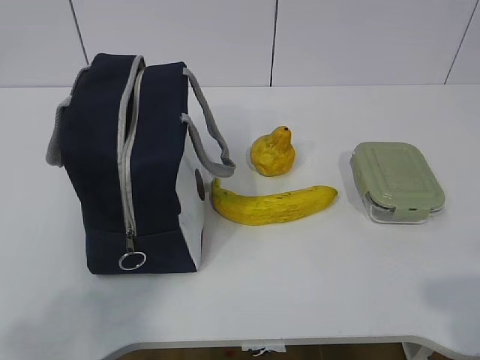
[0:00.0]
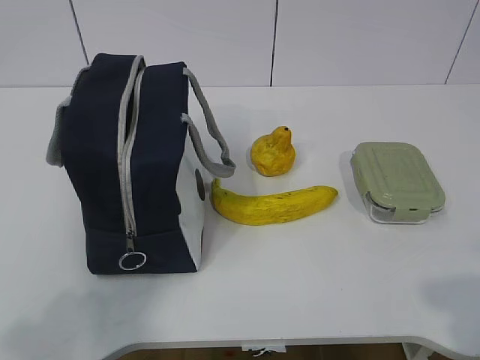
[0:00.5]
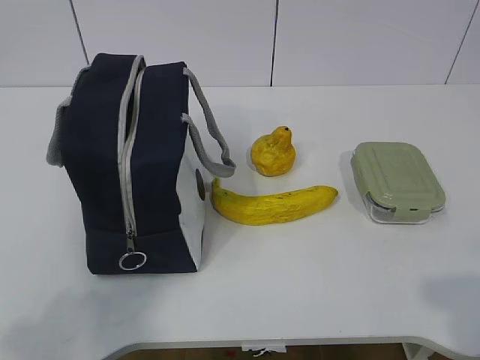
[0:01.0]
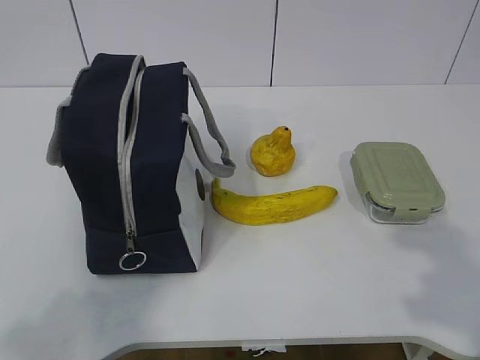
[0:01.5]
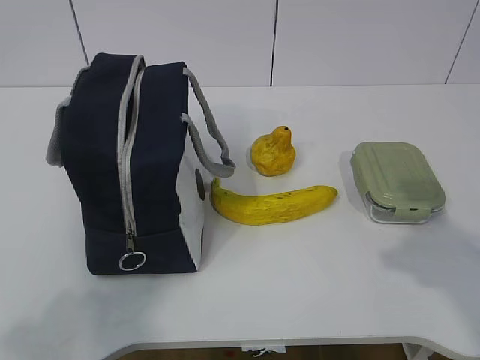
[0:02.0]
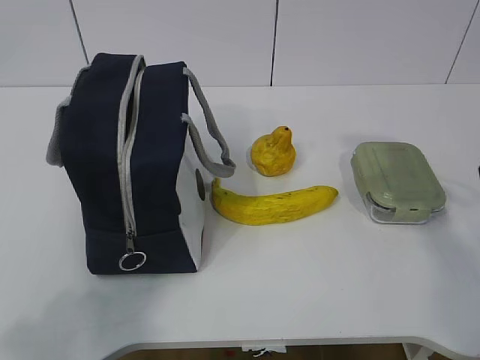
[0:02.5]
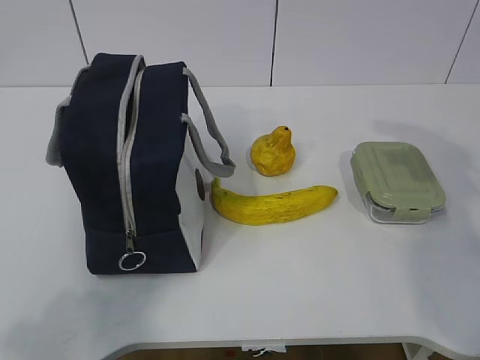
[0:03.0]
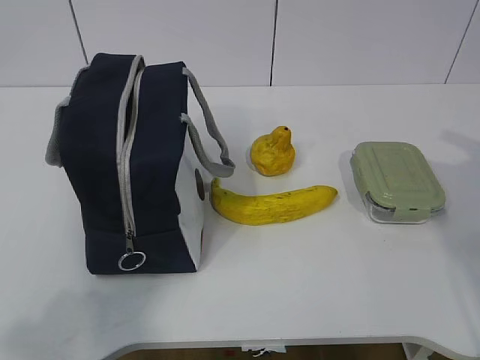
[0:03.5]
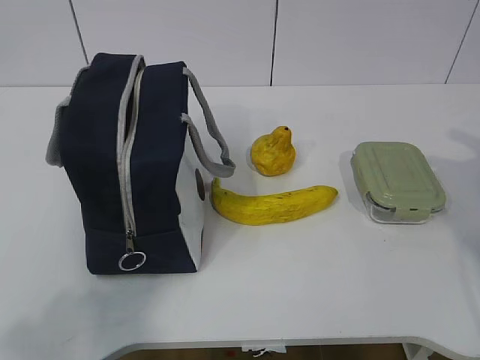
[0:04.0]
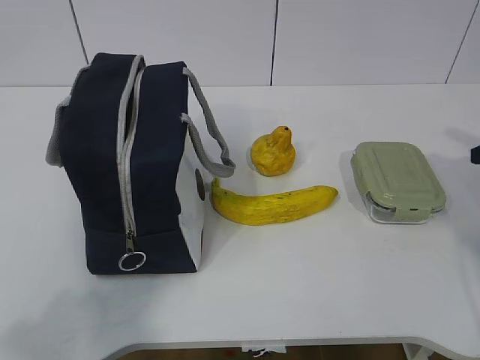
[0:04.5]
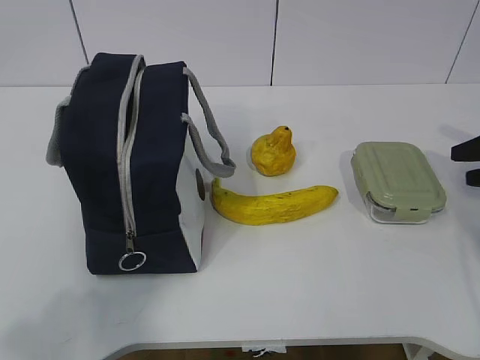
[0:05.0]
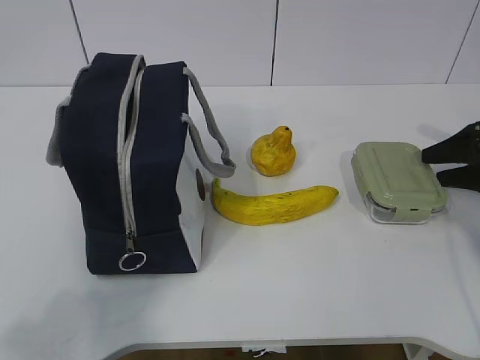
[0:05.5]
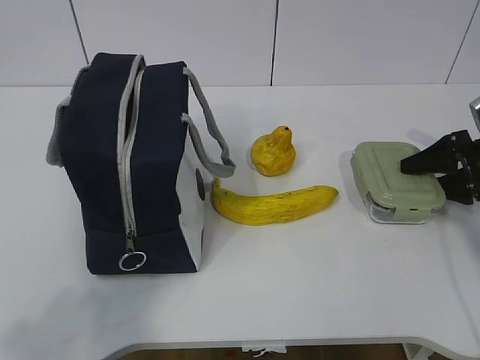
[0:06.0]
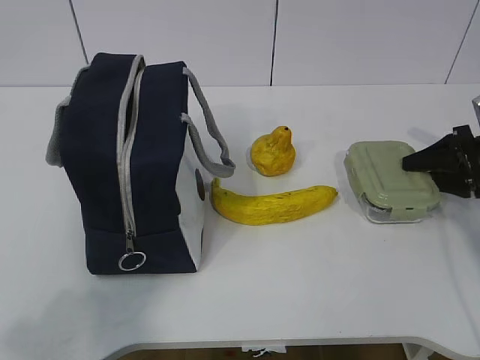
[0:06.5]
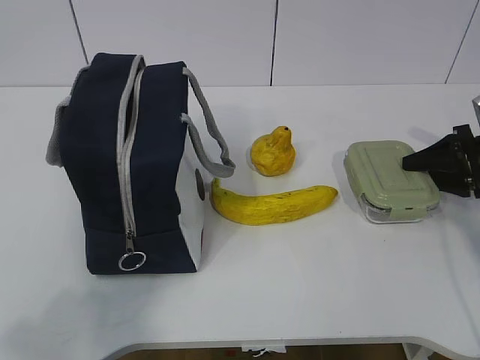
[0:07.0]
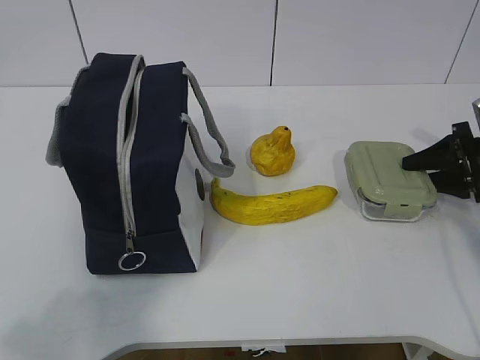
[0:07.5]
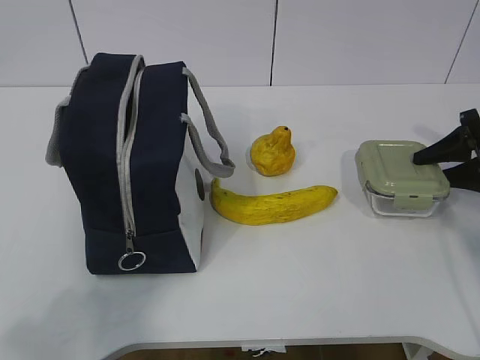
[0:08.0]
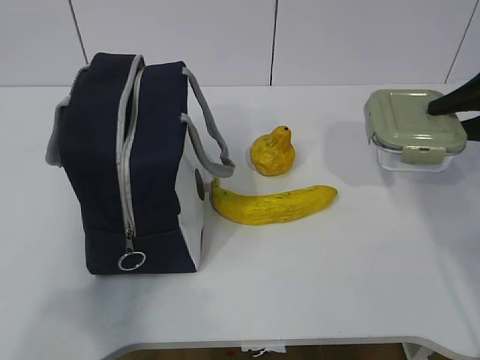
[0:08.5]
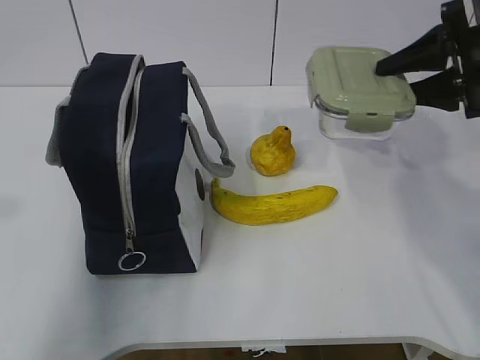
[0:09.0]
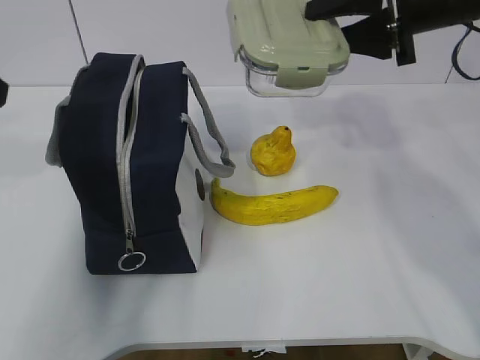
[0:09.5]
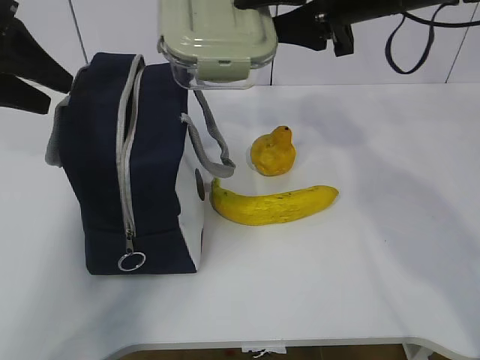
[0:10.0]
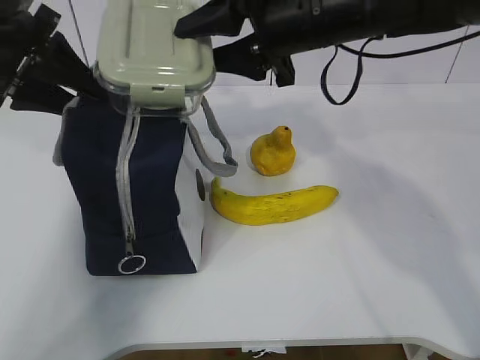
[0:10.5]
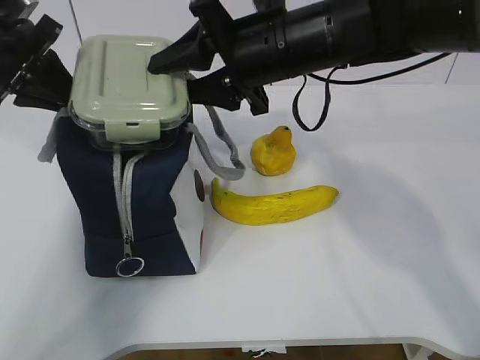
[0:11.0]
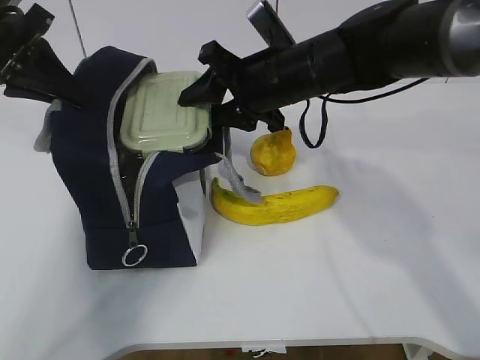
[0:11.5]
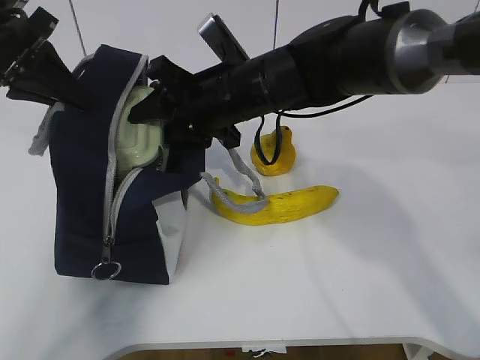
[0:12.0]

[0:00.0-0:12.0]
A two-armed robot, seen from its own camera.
Step, 0:00.0 to 0:06.0: Grab the lunch box with your right hand.
Step, 0:06.5 to 0:09.0: Grab the lunch bag with your left hand.
Step, 0:09.5 to 0:10.5: Place it into the bag with your right hand.
0:02.0 to 0:04.0: The right gripper moves forward, to the right and downward, roughly 30 cm.
0:04.0 to 0:06.0: The right gripper heads downward, forward and to the left, covering approximately 10 cm.
0:06.0 to 0:08.0: The right gripper closes up.
0:08.0 to 0:10.0: The right gripper goes approximately 30 cm to the left and upward, while the left gripper heads forward, covering roughly 35 cm, and opens up.
0:10.0 to 0:12.0: The right gripper travels to the left and downward by approximately 15 cm; the left gripper closes up.

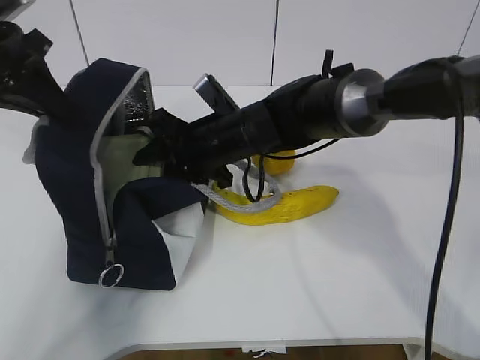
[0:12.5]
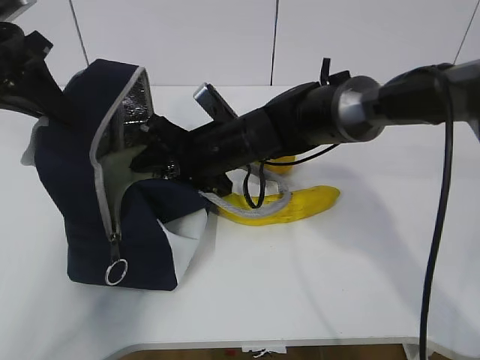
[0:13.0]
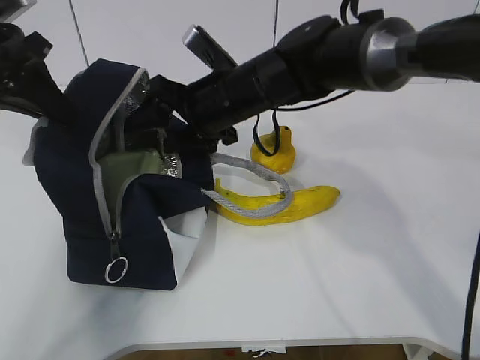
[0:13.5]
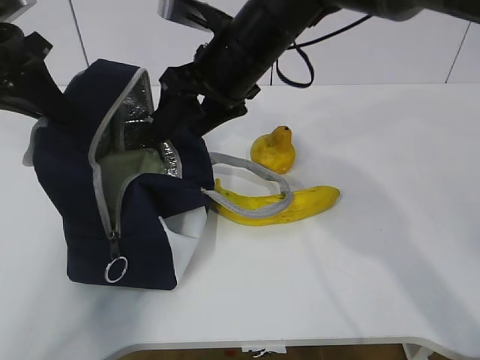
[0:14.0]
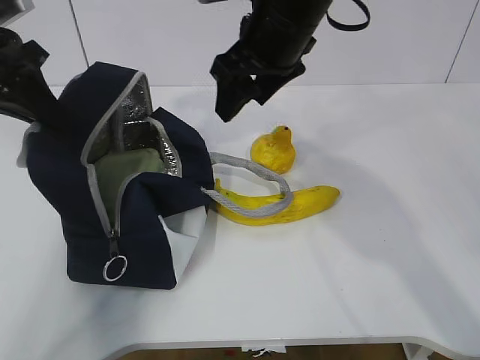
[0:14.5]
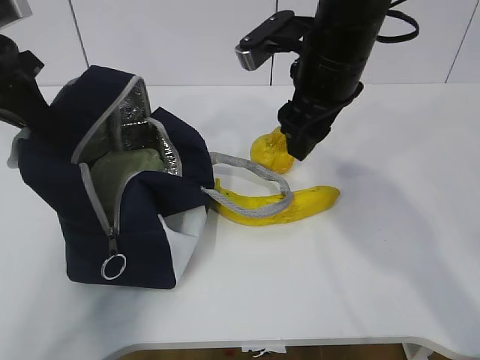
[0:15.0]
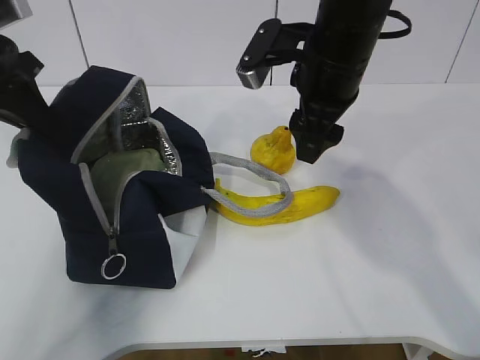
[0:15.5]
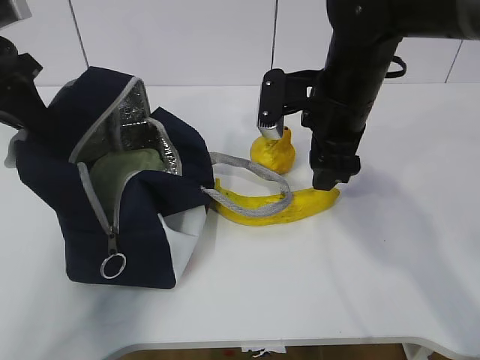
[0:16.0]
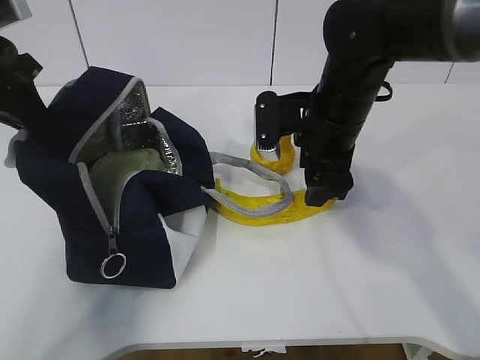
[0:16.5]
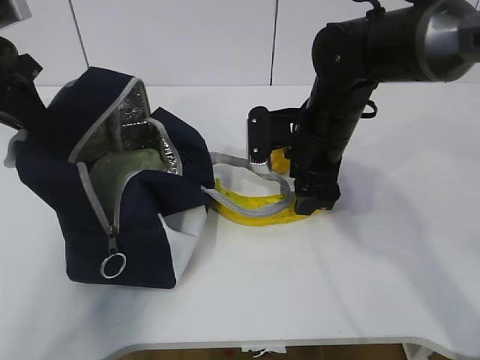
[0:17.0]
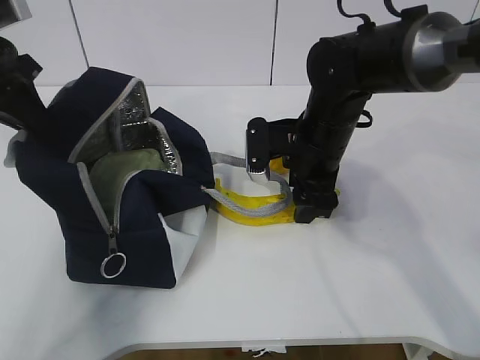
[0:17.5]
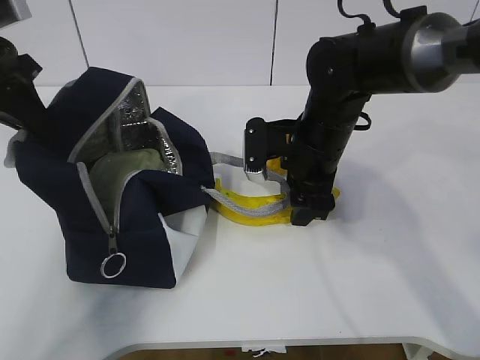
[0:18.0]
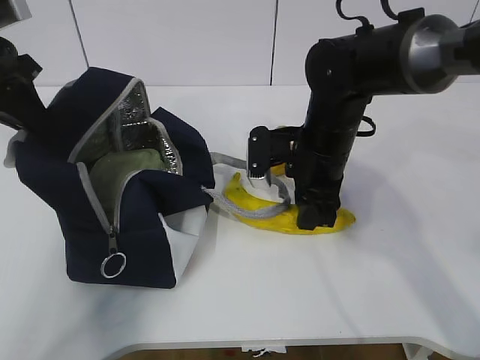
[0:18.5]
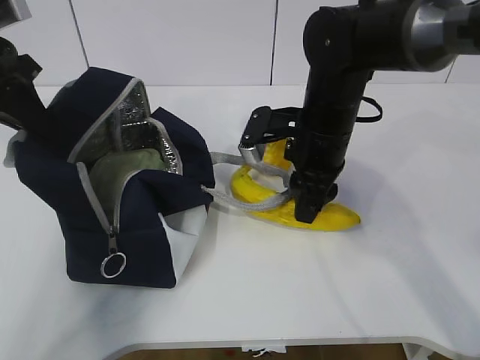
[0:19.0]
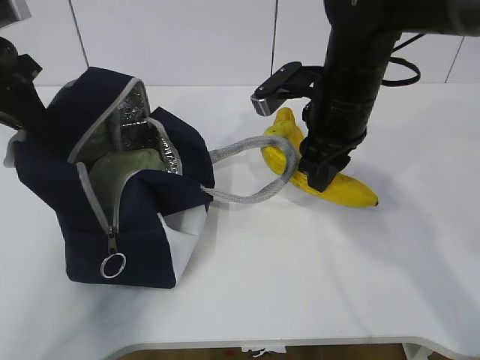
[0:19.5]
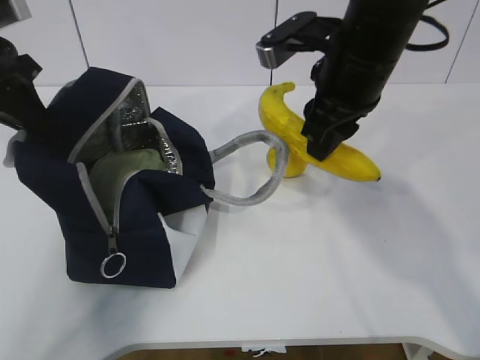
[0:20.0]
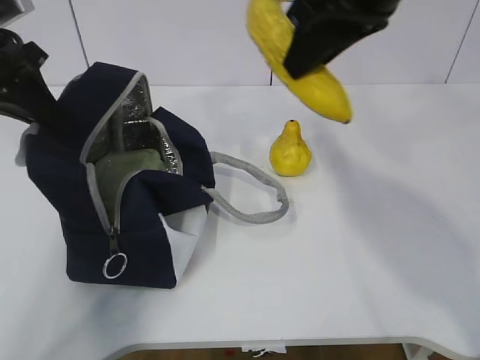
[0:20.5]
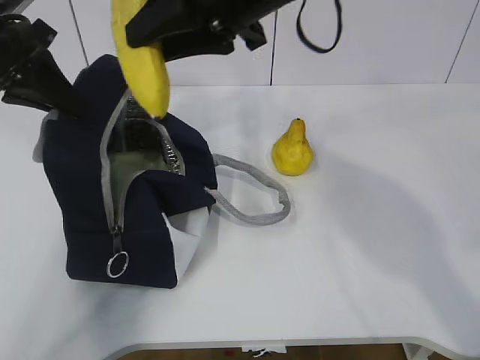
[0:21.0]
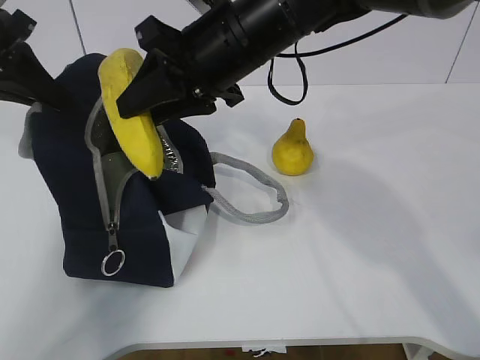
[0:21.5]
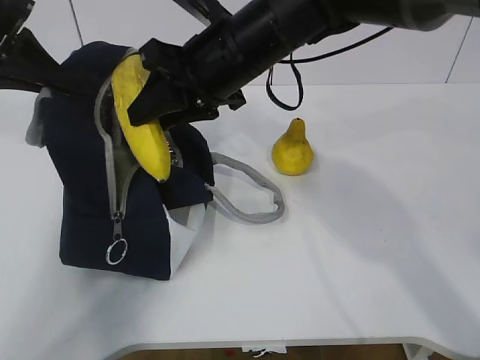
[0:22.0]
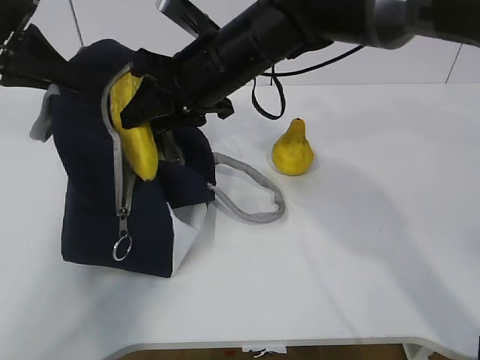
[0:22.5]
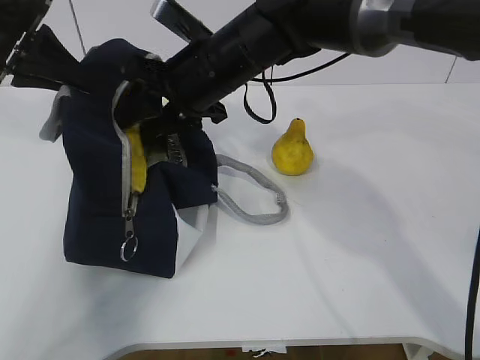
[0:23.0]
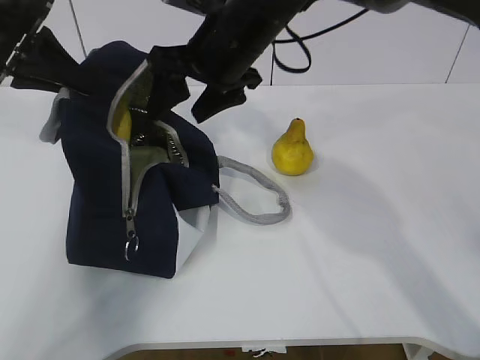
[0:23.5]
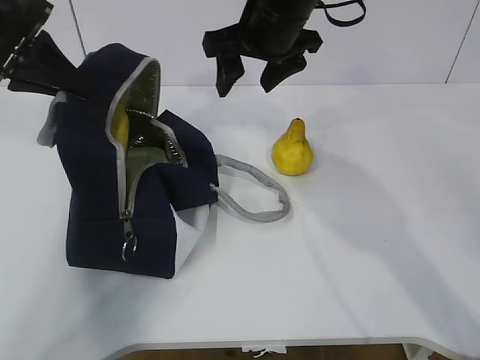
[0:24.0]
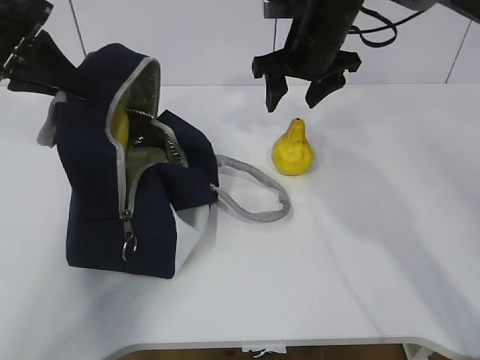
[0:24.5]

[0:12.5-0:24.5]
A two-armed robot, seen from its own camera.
Step, 0:12.5 to 0:15.0: Grab the banana with your right hand.
Step, 0:15.5 to 0:19.0: Place it into the bag with your right hand.
Step, 0:19.5 to 0:21.0: Grab the pear with your right hand.
Step, 0:21.5 to 0:22.5: Secure the lunch bag with your left hand.
0:12.5 to 0:14.5: The right gripper heads upward and to the right, covering approximately 15 cm.
0:14.5 to 0:16.5: The right gripper travels downward and to the right by some 10 cm.
0:16.5 to 0:18.5: The right gripper closes its fingers.
0:18.5 to 0:20.5: The right gripper shifts roughly 20 cm upward.
0:20.5 to 0:22.5: The right gripper shifts some 20 cm downward, to the left and forward.
0:22.5 to 0:24.5: The right gripper travels to the right and forward by approximately 15 cm, and opens its fingers.

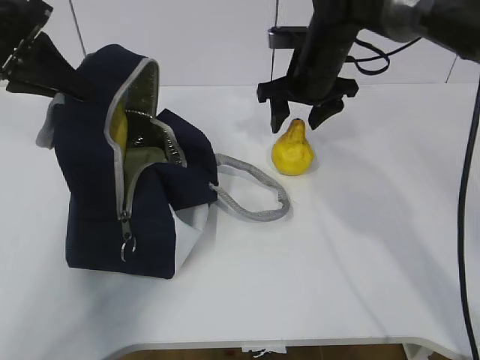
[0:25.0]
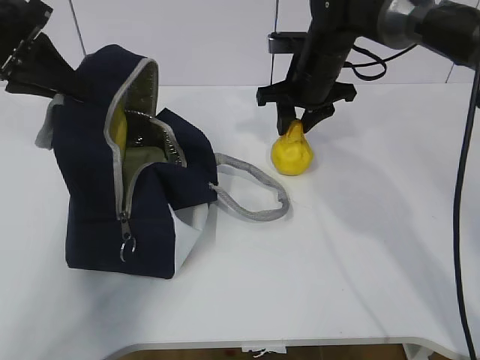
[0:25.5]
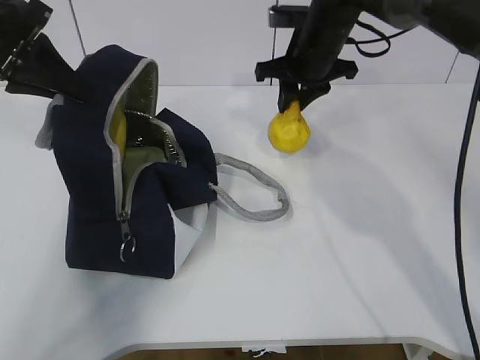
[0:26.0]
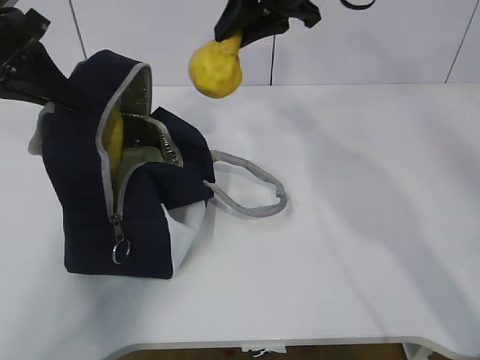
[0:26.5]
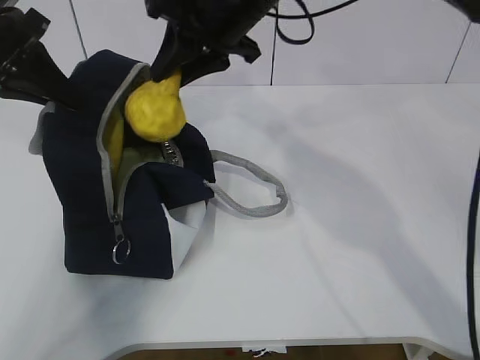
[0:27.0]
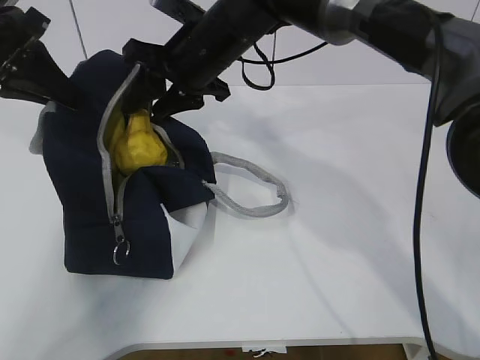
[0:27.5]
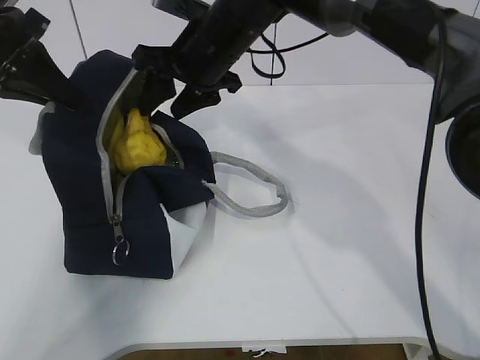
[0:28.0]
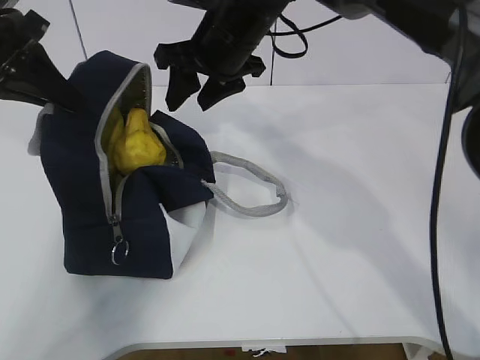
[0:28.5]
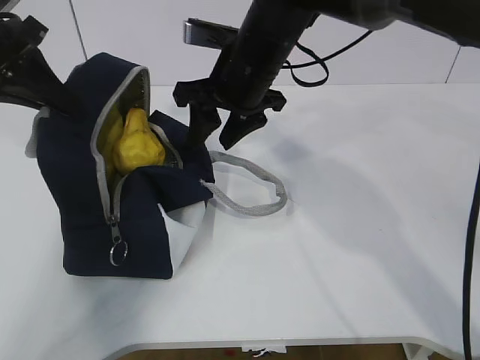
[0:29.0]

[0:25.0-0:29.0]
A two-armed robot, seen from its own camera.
Step, 0:25.0 to 0:27.0: Grab the lunch bag with your right hand.
0:25.0 to 0:27.0: The right gripper shifts about 15 cm to the left, upward and backward, and closes its fingers.
0:27.0 to 0:29.0: The right gripper goes about 5 cm downward, and opens.
